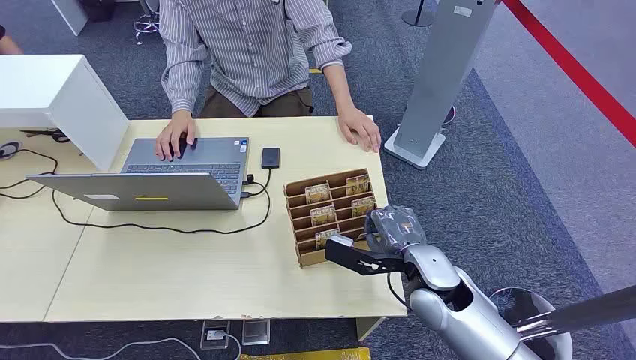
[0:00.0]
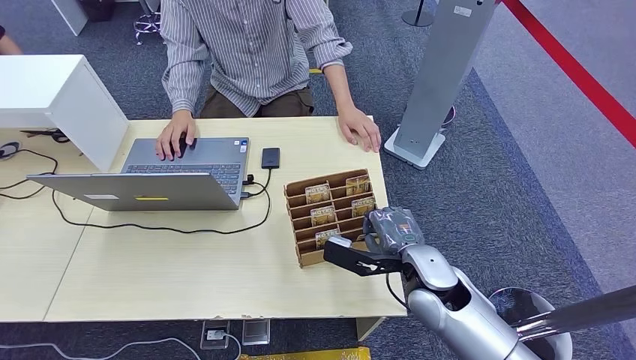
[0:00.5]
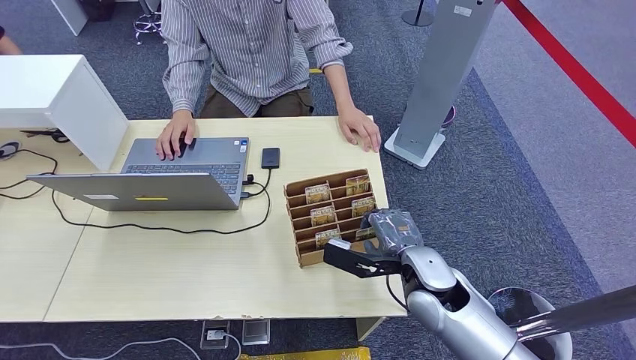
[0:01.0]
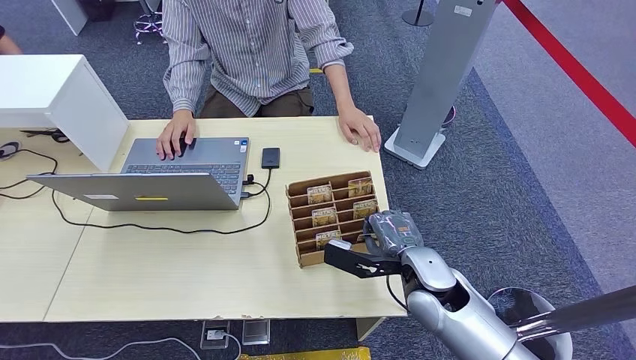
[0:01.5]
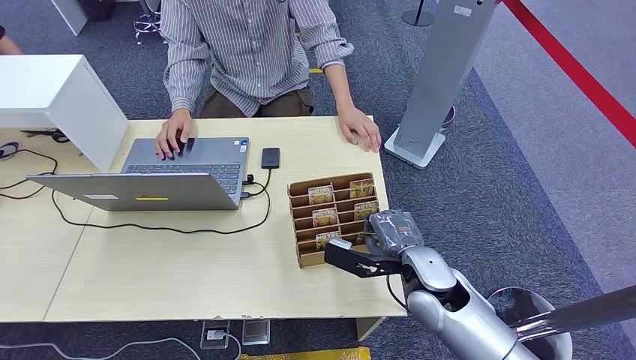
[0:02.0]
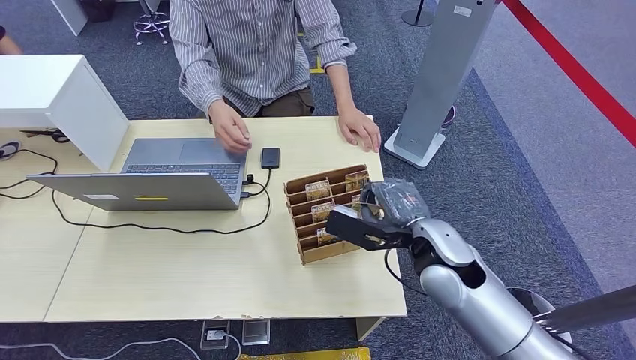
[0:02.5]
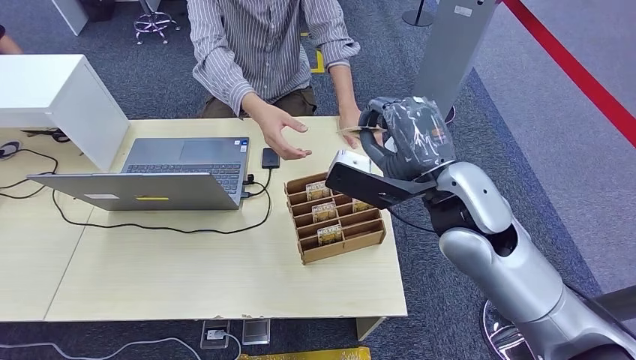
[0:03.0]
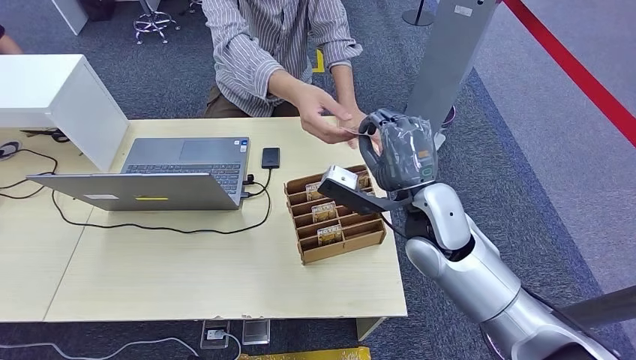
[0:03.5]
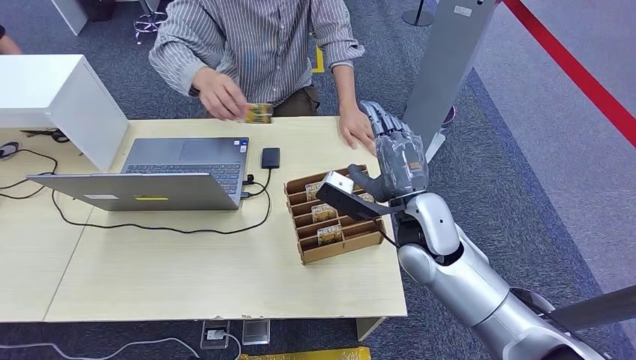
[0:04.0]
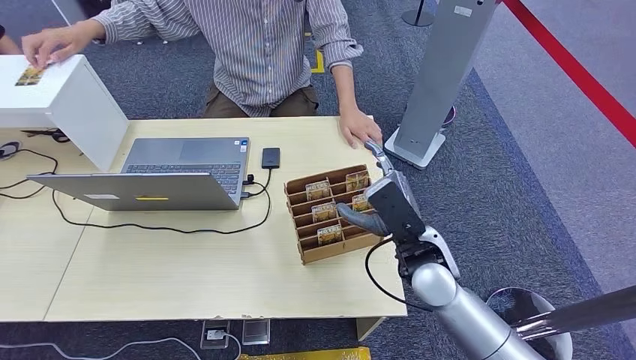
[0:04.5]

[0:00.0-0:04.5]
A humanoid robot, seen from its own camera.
Step, 0:00.0 to 0:02.5: Pick up the key card from the card box.
Step, 0:03.5 to 0:04.5: Hand the key card to the target.
0:02.0 to 0:04.5: The right hand travels upward and back again, approximately 20 cm each way.
